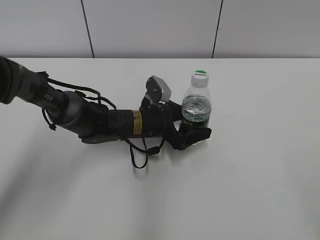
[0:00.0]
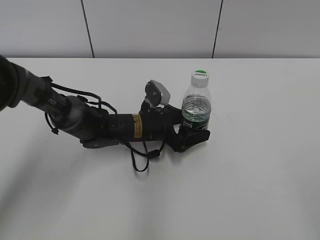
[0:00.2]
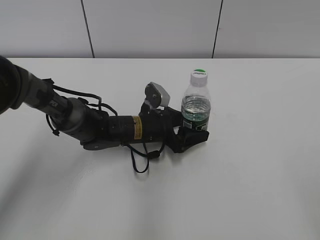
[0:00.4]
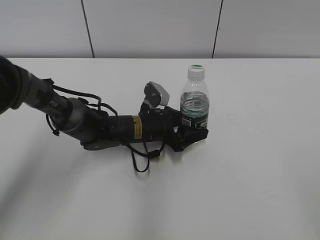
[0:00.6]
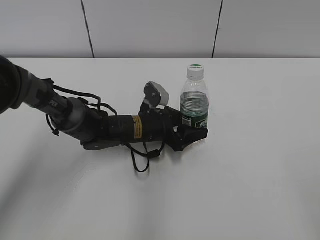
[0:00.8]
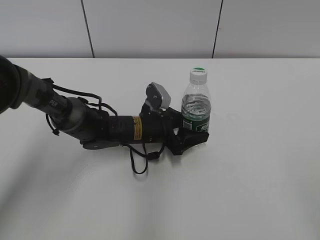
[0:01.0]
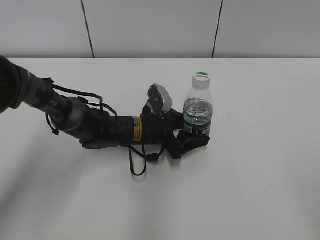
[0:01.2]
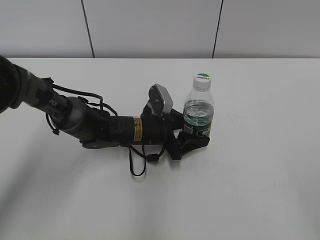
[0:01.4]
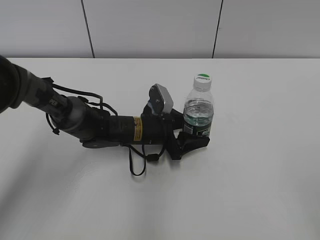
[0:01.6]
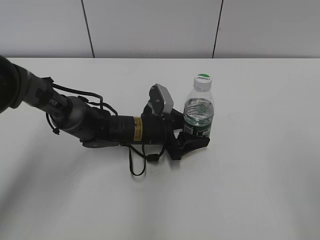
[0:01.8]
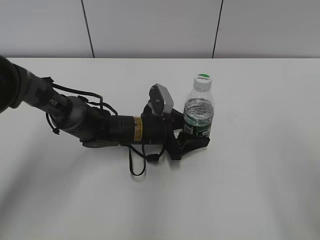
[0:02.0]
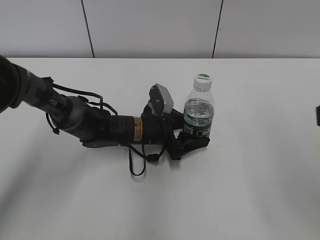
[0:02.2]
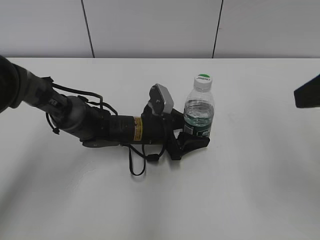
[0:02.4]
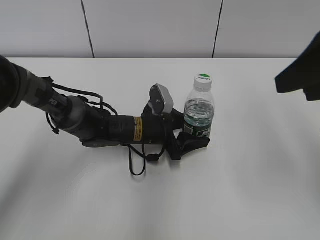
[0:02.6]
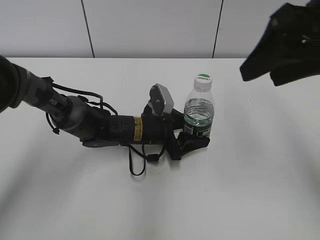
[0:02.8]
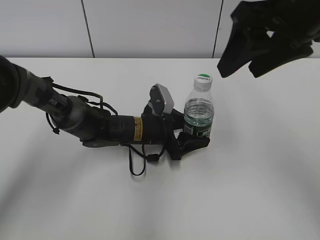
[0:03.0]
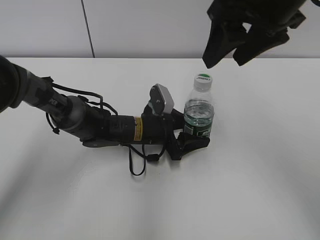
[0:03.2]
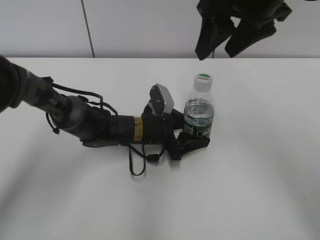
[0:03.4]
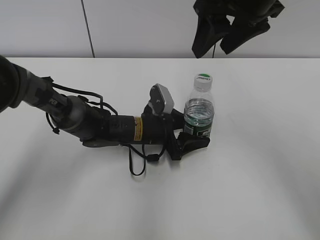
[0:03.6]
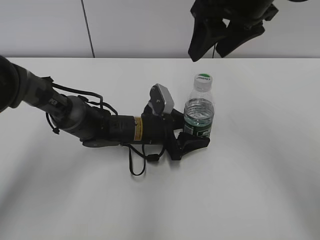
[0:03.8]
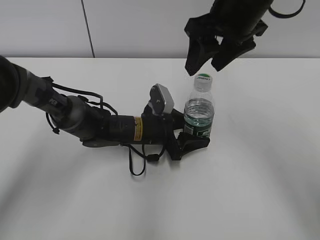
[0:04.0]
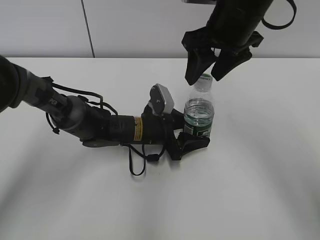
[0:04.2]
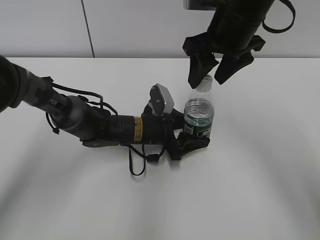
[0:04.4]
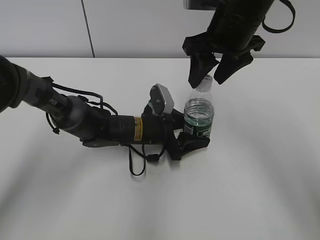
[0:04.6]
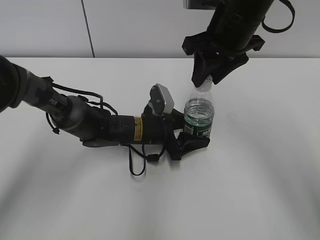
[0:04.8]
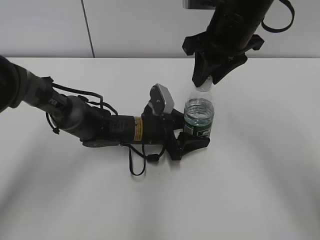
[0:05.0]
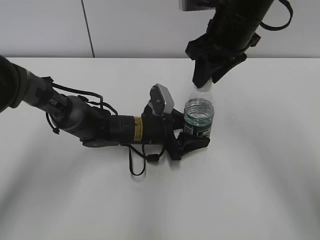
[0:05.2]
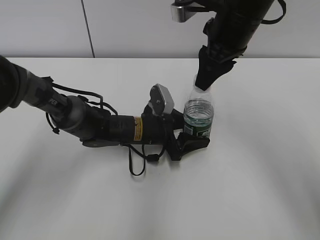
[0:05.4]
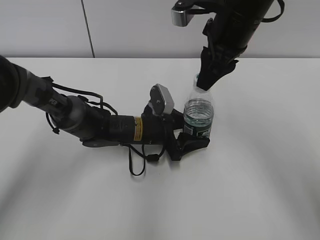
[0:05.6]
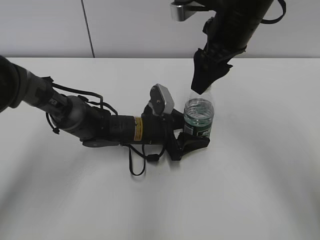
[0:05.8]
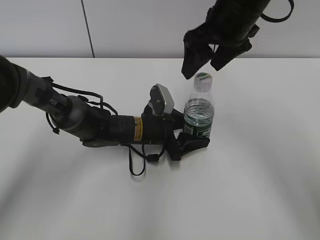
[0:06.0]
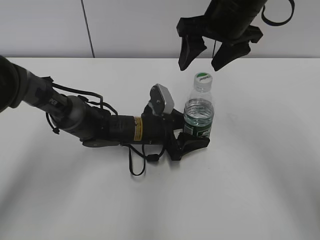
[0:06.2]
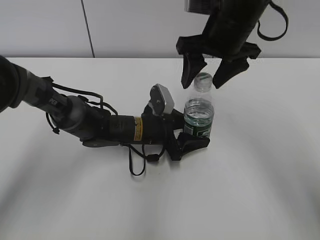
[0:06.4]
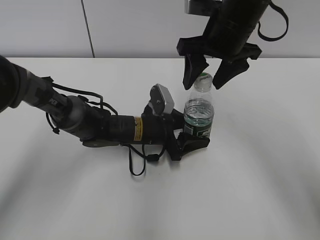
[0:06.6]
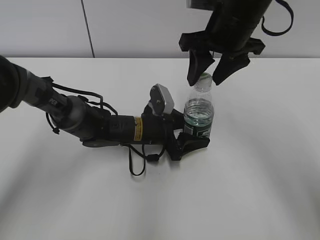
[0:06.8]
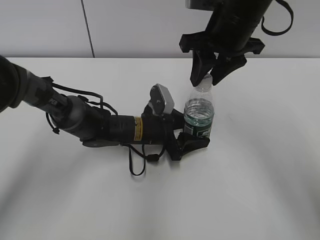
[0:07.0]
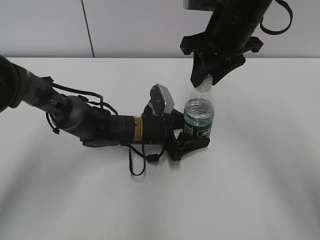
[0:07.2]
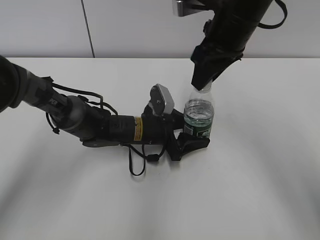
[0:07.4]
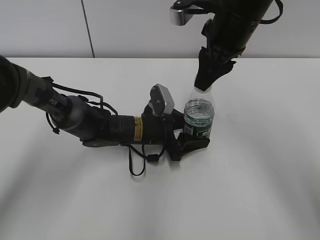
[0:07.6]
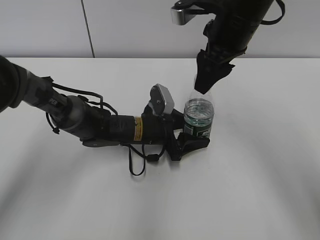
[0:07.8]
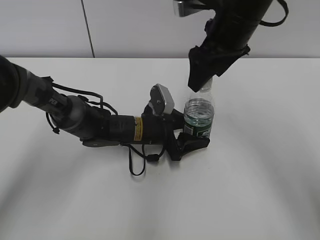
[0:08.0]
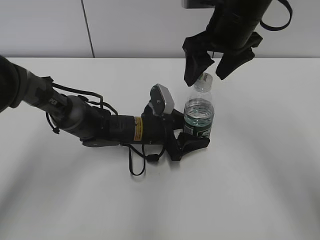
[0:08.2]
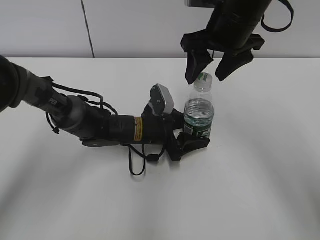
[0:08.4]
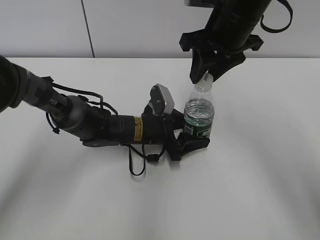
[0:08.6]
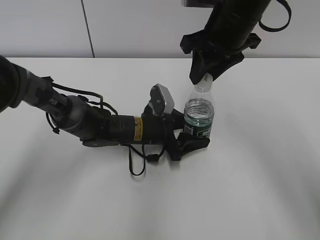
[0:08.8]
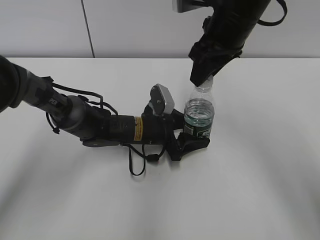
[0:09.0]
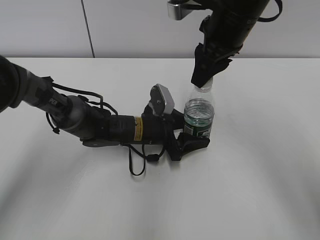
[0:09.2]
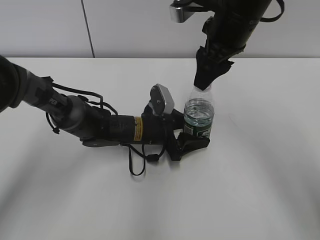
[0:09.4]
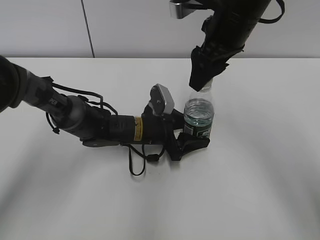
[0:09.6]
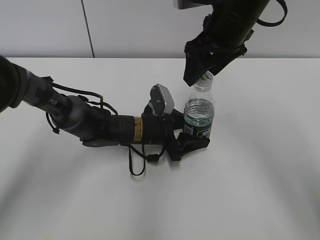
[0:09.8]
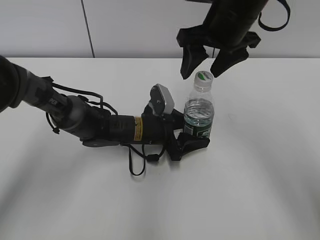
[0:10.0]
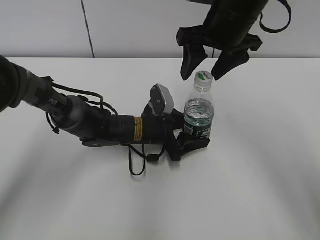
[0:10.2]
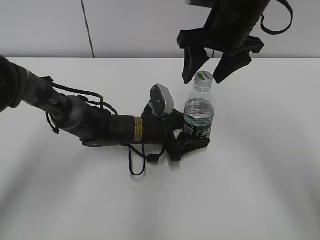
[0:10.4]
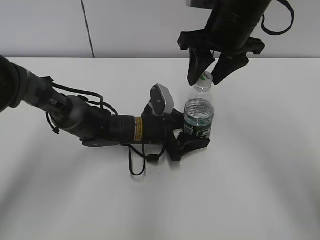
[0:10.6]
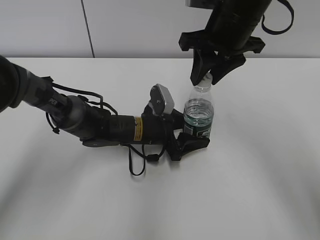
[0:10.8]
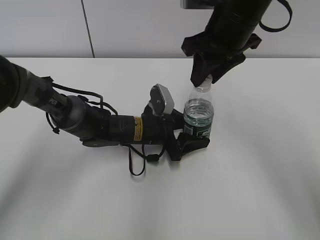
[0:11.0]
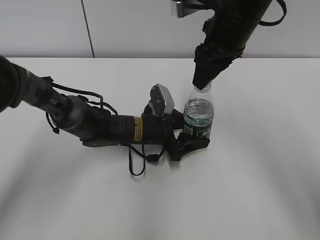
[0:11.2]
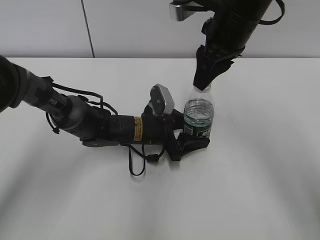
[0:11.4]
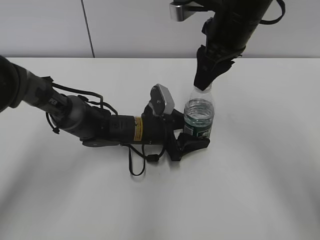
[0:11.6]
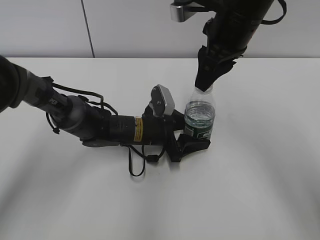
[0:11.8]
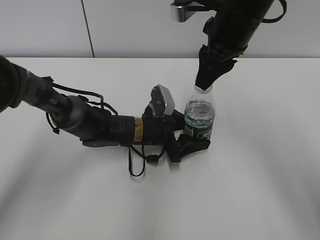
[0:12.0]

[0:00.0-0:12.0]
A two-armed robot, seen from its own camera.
0.0 to 1.6 s: The left gripper closes up.
1.6 to 3.0 s: The right gripper heads forward and to the left, covering about 30 cm.
3.0 to 4.4 s: The right gripper goes some 10 cm forward and downward.
4.4 to 6.0 s: The right gripper closes and opens again.
6.0 to 7.6 s: The right gripper closes.
7.6 to 9.0 s: The right gripper opens and closes again.
9.0 to 10.4 s: The right gripper opens its fingers.
10.4 to 12.0 s: The right gripper closes its fingers.

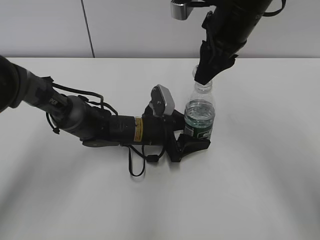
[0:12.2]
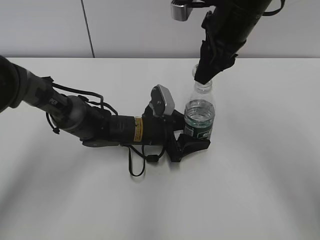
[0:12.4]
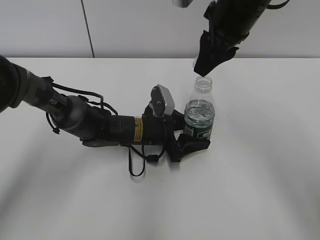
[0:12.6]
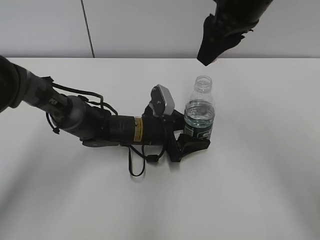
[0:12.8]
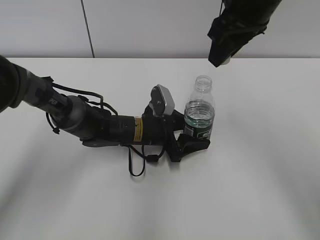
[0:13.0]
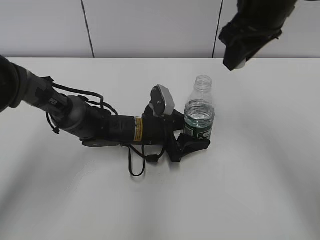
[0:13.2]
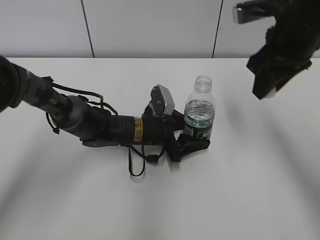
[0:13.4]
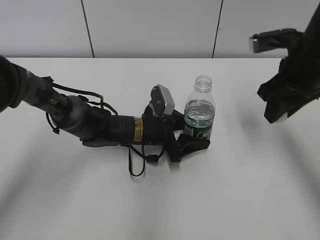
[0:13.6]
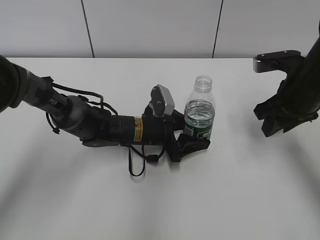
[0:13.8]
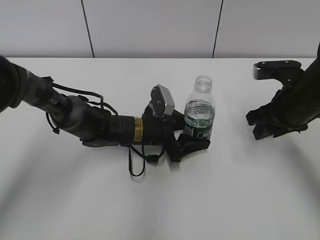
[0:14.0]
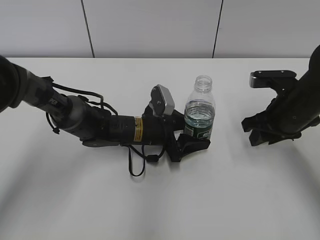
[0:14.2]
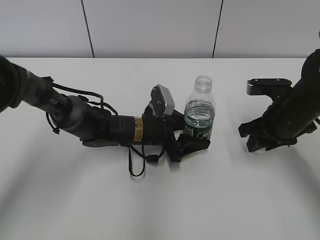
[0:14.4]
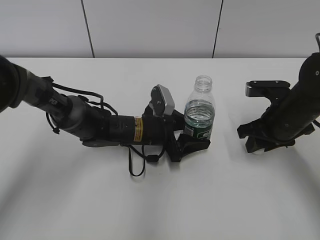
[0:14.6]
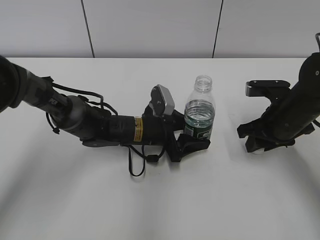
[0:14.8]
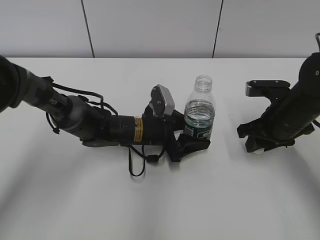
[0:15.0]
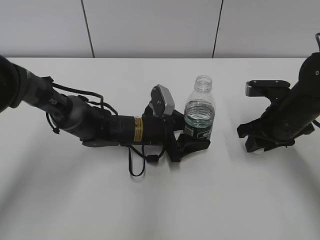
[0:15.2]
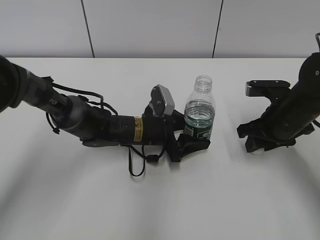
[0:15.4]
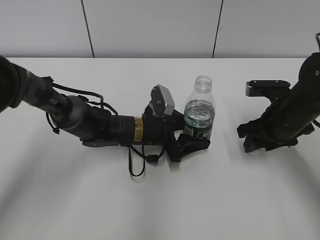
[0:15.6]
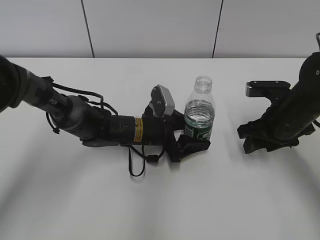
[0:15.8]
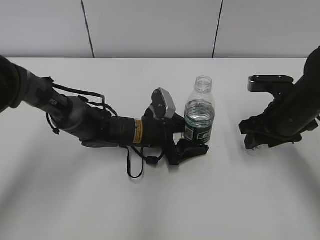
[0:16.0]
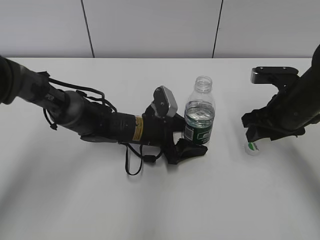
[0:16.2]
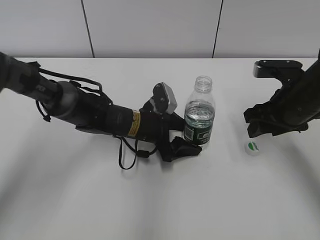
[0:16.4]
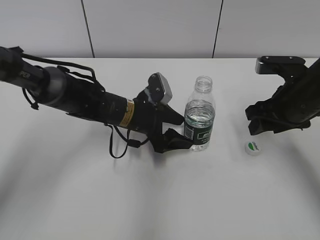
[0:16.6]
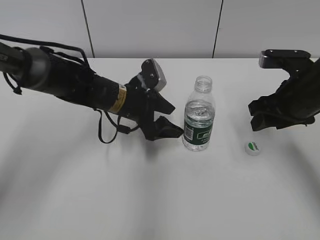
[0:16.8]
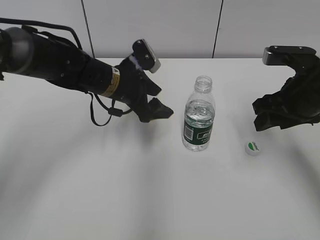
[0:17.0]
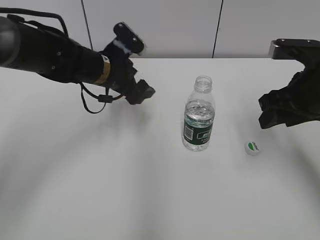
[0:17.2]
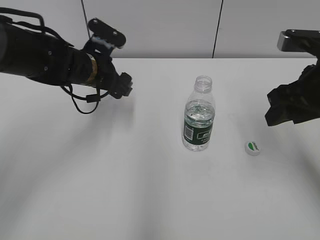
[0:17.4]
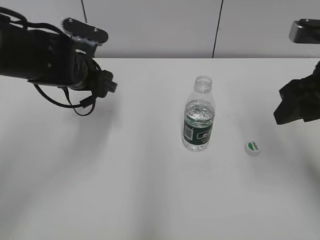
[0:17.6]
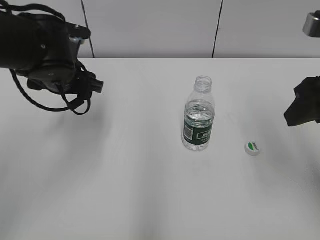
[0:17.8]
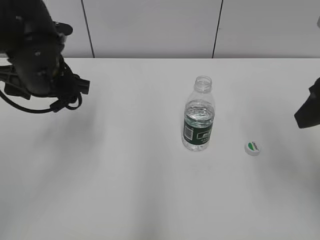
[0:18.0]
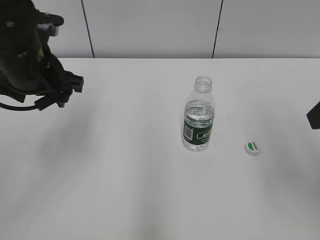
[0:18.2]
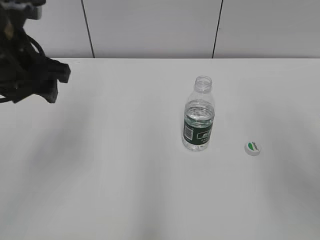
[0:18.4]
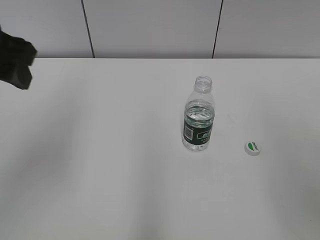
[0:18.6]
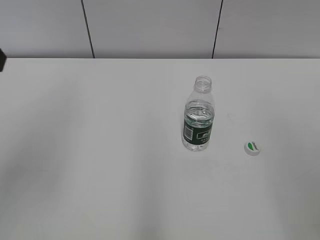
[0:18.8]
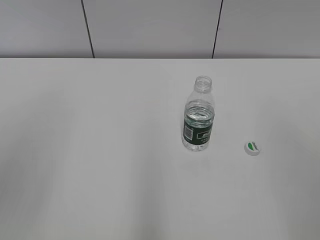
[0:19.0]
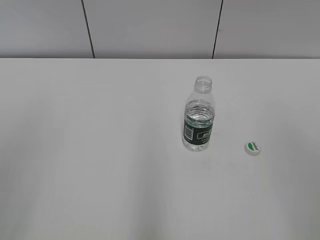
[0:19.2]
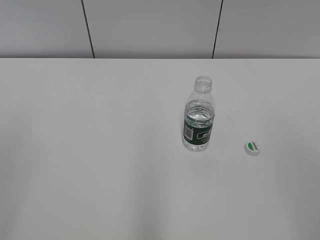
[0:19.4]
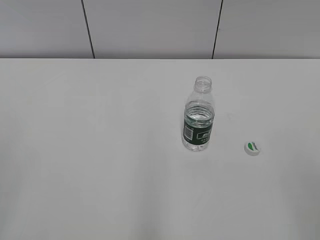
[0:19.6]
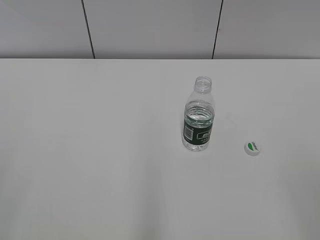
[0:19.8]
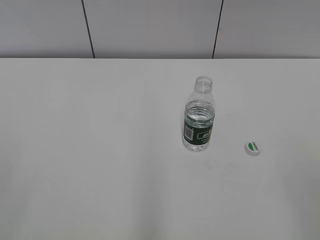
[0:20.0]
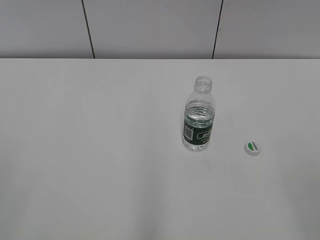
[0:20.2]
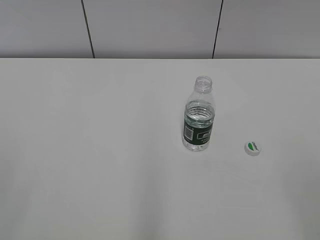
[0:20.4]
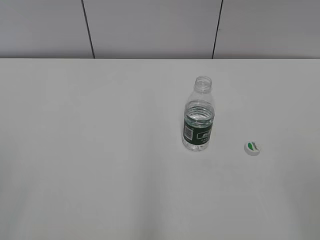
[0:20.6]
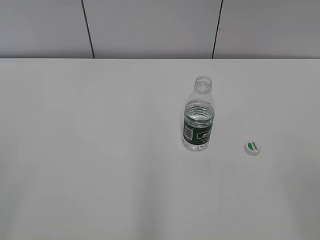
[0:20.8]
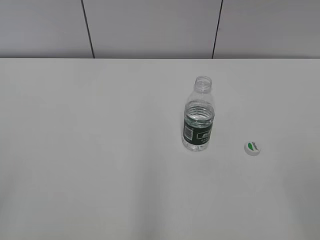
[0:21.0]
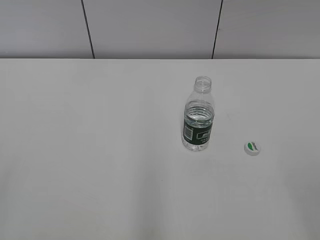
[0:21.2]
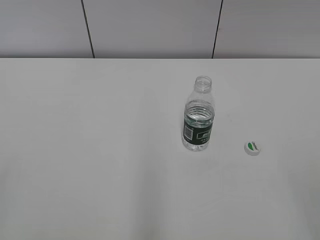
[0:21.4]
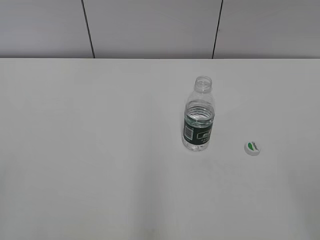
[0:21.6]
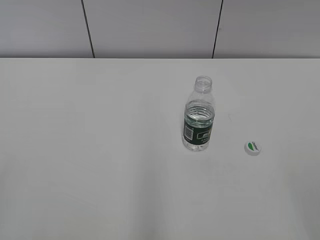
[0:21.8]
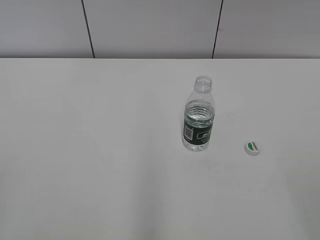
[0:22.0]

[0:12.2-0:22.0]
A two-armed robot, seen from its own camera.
12.2 to 13.6 s: The right gripper is displaced to the right by roughly 10 cm.
13.6 to 15.0 s: The right gripper shifts roughly 10 cm downward.
15.0 to 16.4 s: The right gripper opens up. Meanwhile the left gripper opens up.
16.4 to 17.8 s: The right gripper heads upward and backward, covering roughly 15 cm; the left gripper goes about 20 cm upward and to the left.
17.8 to 19.2 s: The right gripper is displaced backward and upward by about 20 cm; the left gripper goes about 30 cm backward, upward and to the left.

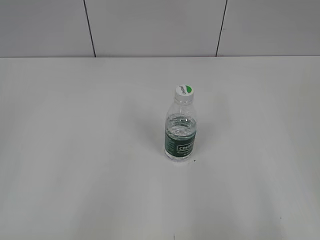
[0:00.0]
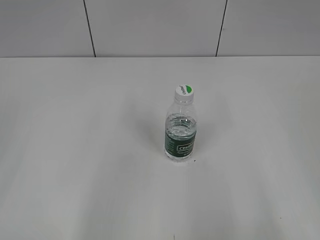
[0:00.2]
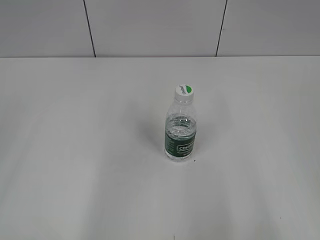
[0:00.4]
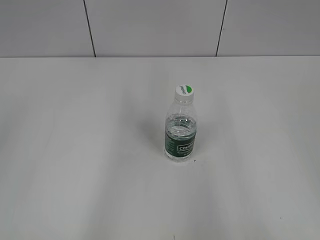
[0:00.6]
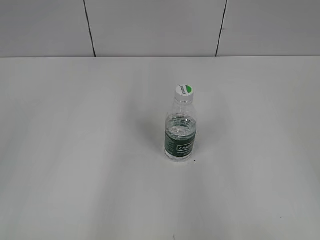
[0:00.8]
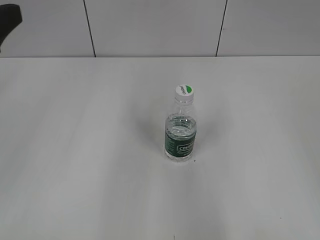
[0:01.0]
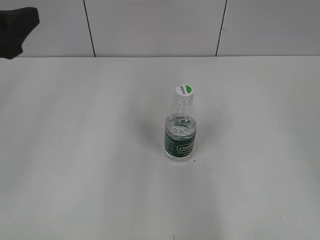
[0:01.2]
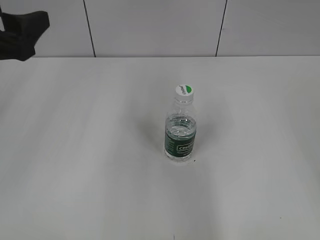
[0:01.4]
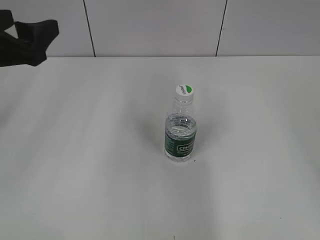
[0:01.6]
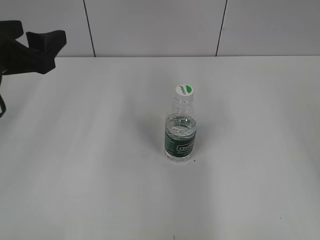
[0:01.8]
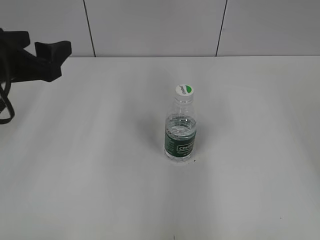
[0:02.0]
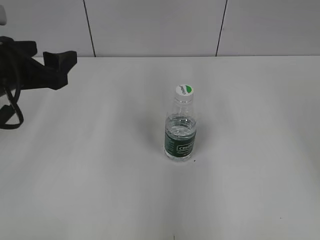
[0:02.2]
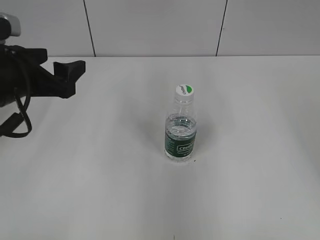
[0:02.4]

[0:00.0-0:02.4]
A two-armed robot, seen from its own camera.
0.0 to 1.2 s: The left gripper is displaced forward by approximately 20 cm.
1.2 to 2.4 s: The left gripper goes approximately 10 cm downward and forward.
